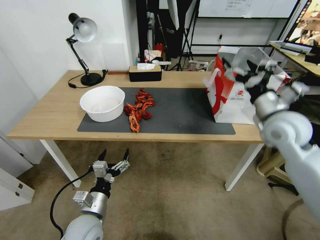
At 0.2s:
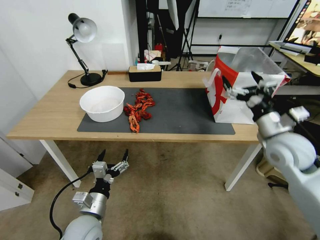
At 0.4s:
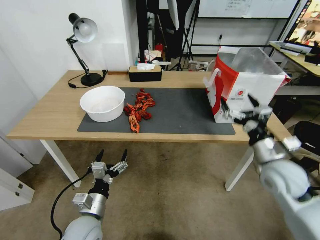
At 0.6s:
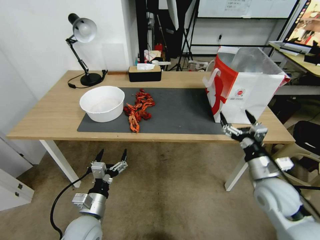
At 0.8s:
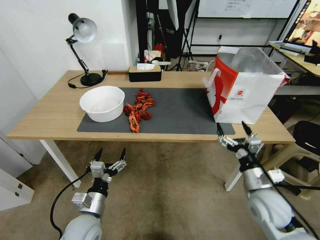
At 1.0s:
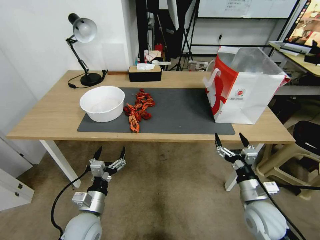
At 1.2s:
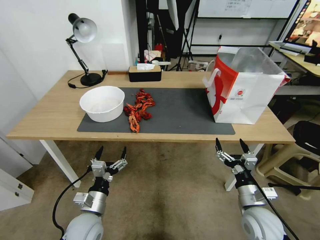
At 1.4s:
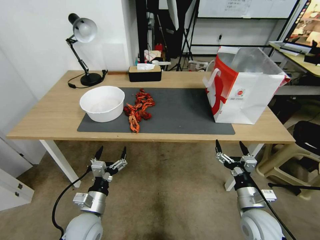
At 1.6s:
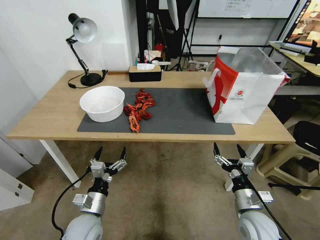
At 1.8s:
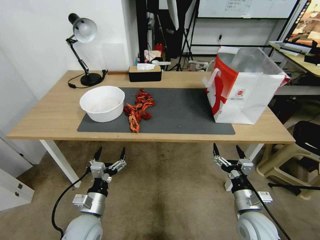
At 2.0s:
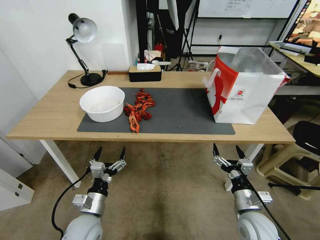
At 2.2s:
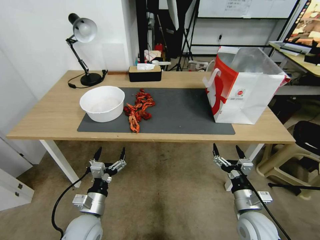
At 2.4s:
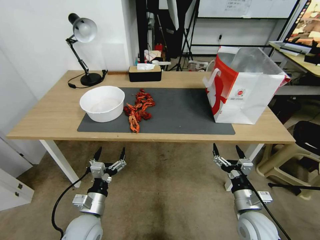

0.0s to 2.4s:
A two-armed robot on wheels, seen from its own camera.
Task of the whole recording: Close the takeout container lid, then place the container into the takeout bag.
0.0s to 1.2s: The right gripper travels downward and backward by roughly 25 cm.
1.2s to 2.4s: The grippers make only small movements.

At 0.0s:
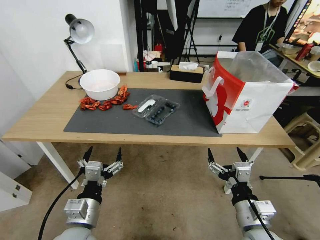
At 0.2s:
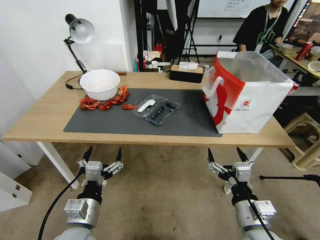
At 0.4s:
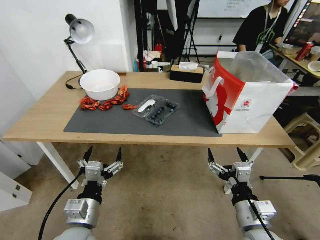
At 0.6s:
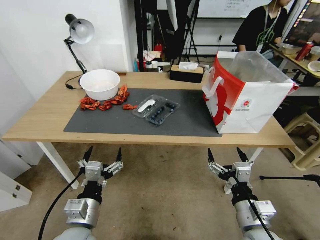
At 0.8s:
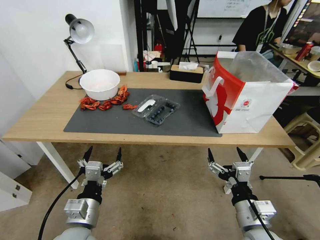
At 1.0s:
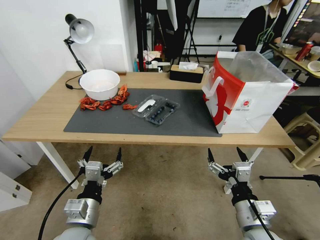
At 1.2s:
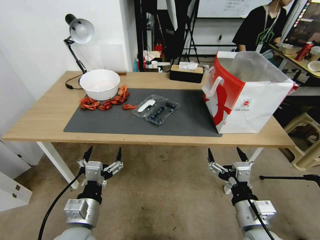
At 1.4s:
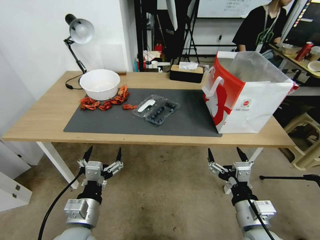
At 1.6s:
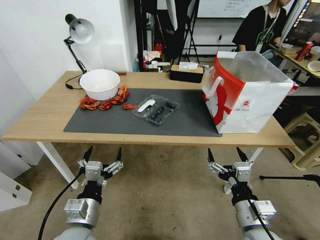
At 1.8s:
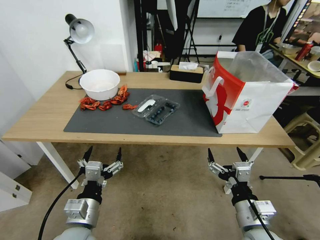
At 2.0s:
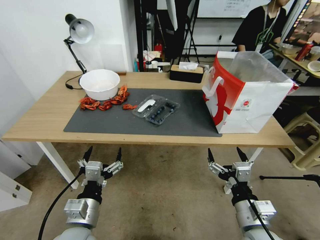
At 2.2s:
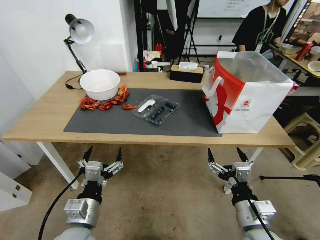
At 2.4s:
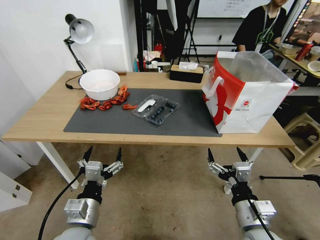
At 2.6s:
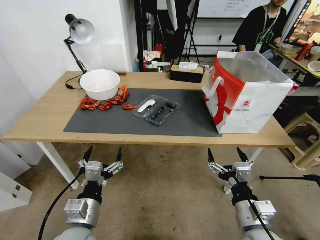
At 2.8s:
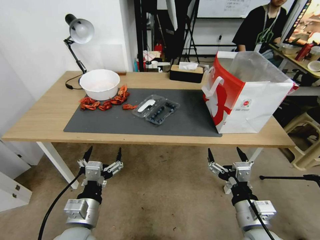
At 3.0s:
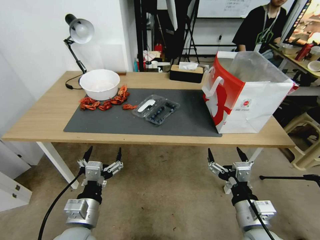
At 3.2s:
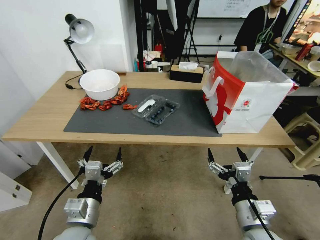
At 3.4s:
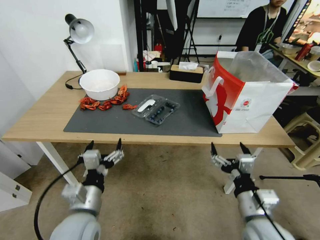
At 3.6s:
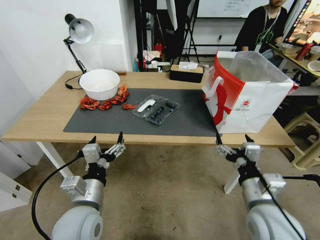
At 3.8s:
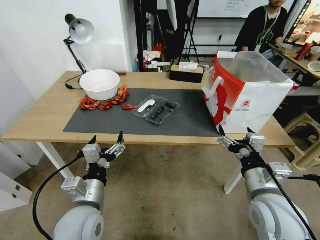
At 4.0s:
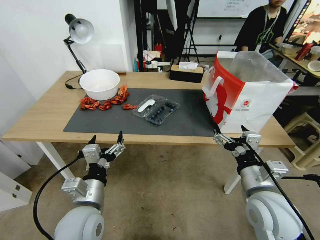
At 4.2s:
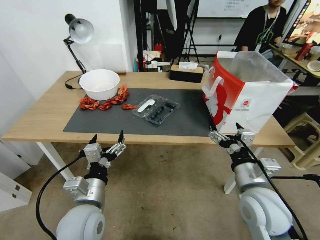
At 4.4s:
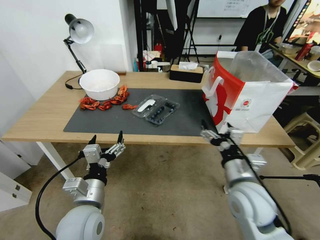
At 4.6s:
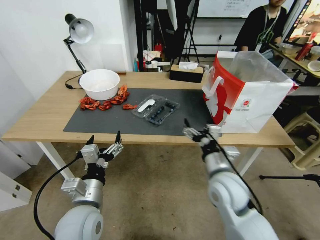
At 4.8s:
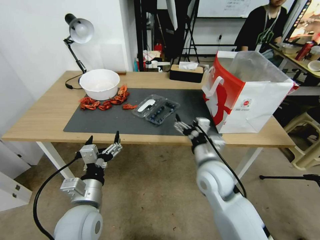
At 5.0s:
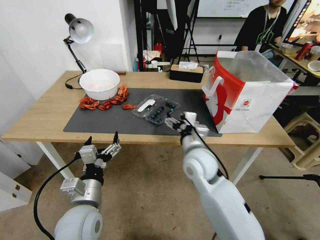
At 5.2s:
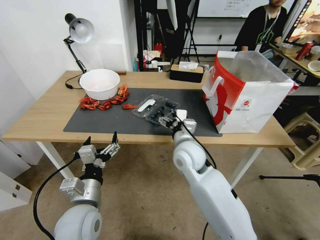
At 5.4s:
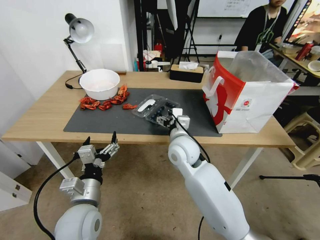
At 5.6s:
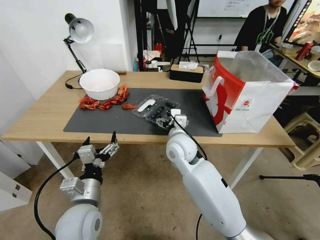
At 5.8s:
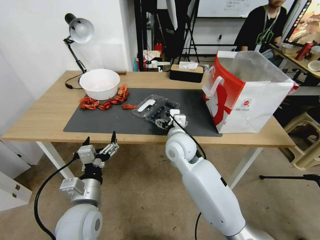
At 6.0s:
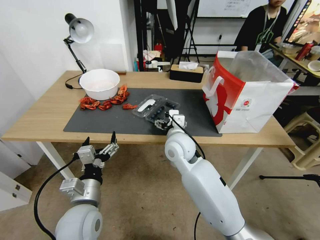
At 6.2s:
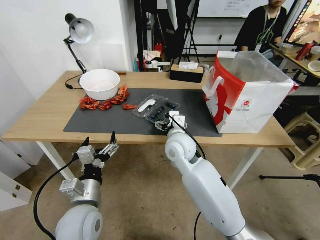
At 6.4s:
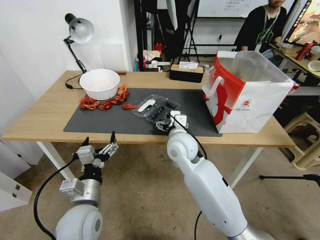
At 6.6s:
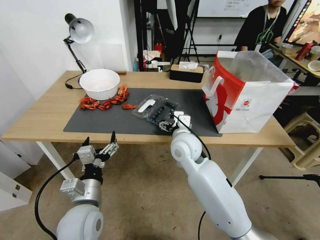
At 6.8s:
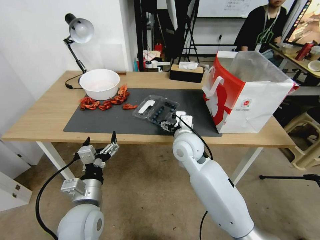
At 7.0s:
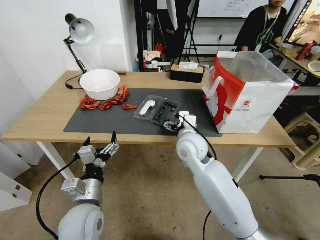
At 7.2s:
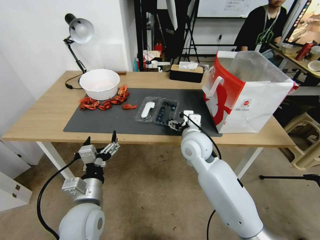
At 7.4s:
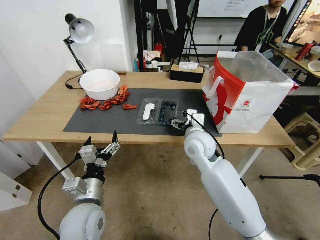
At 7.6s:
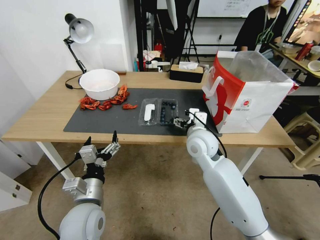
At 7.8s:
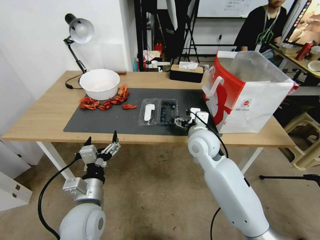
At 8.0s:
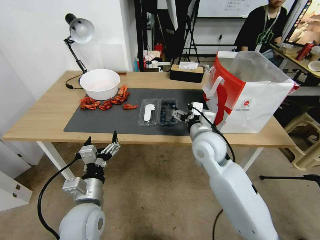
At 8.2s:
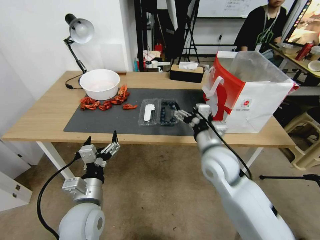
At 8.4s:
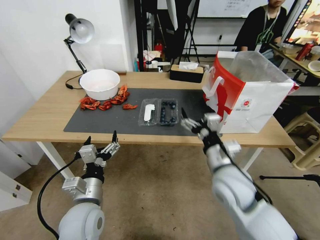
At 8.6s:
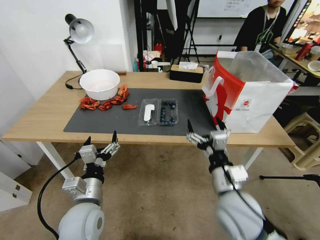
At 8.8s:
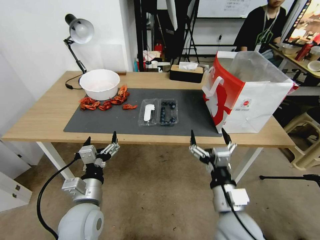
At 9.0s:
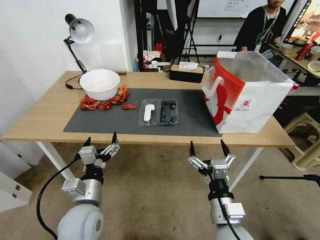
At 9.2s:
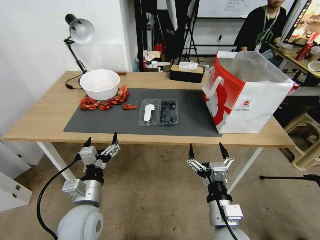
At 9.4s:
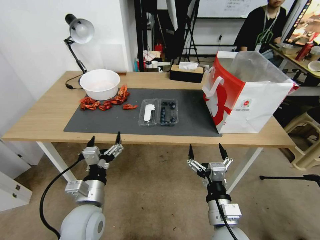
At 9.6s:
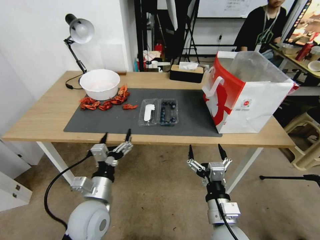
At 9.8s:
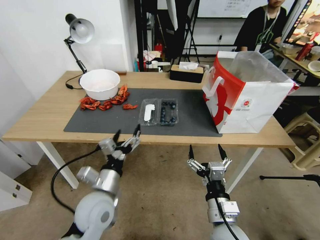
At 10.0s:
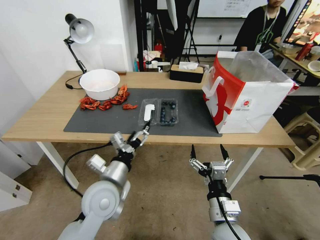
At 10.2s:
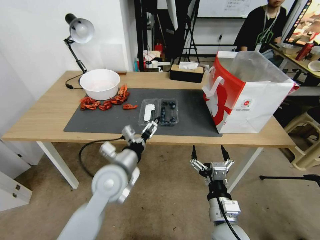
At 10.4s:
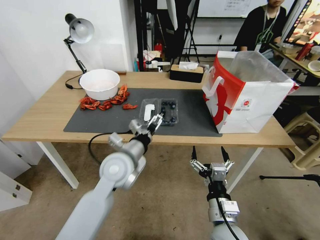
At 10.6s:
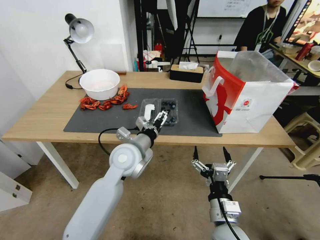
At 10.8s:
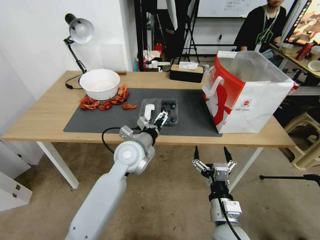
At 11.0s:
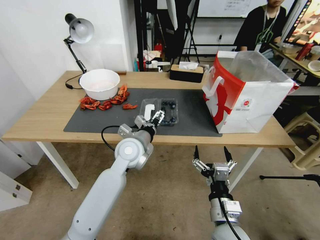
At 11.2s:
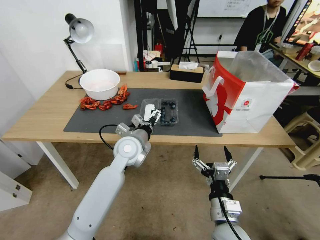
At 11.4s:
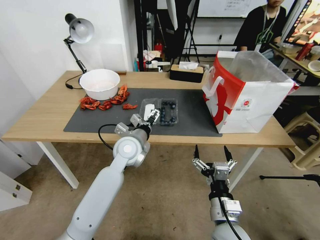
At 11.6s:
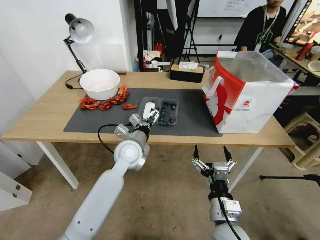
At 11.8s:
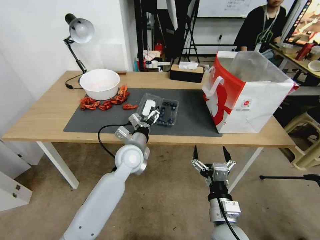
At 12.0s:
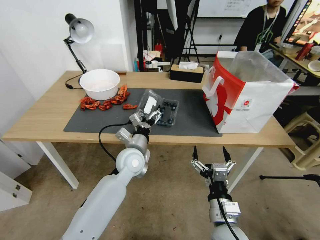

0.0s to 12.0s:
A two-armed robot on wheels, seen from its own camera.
Task of the whole recording: Close the takeout container lid, then place the container into the takeout bag.
1.6s to 3.0s: Neither gripper changes place.
3.0s to 4.4s: The right gripper goes some 10 cm forward.
4.4s to 6.0s: The right gripper shifts some 20 cm to the left and forward.
6.0s to 7.6s: The right gripper moves to the right, some 5 cm.
7.6s to 9.0s: The right gripper goes approximately 25 cm backward.
9.0s to 10.4s: The left gripper moves forward, to the right and upward, approximately 15 cm.
10.4s to 12.0s: The left gripper moves downward and forward, approximately 10 cm.

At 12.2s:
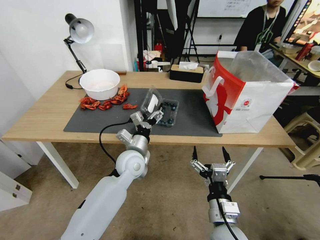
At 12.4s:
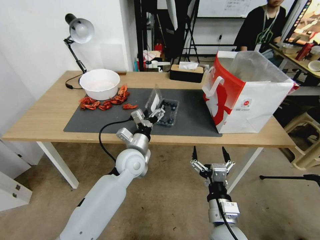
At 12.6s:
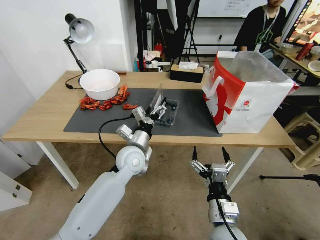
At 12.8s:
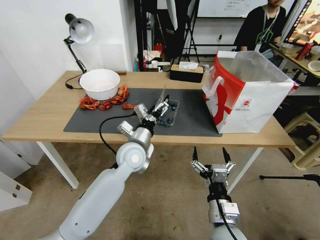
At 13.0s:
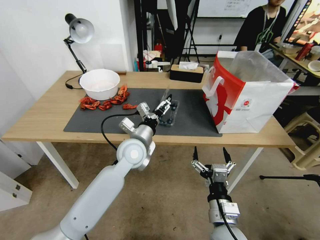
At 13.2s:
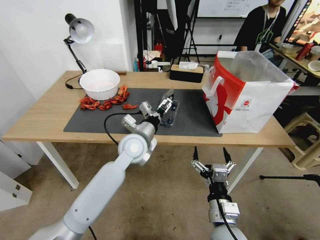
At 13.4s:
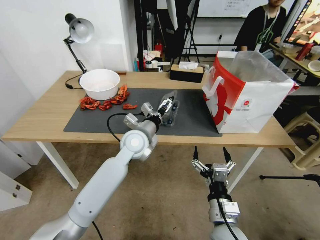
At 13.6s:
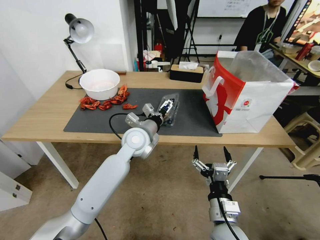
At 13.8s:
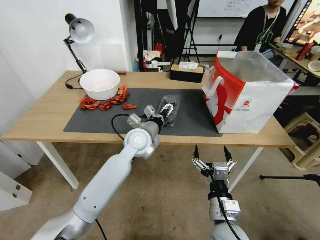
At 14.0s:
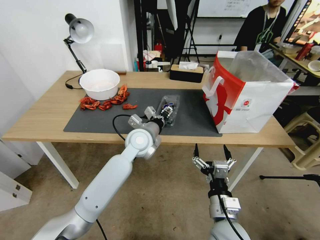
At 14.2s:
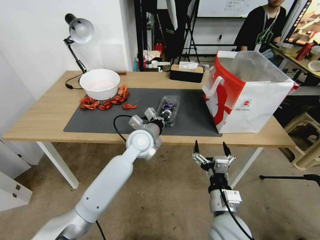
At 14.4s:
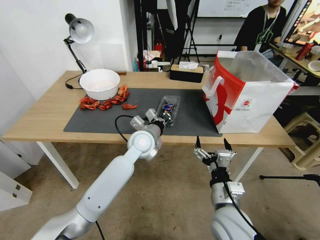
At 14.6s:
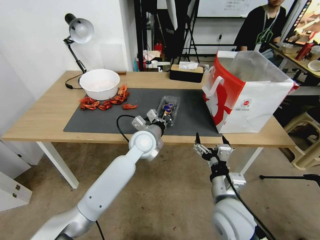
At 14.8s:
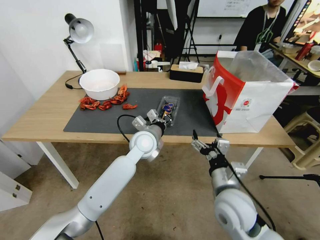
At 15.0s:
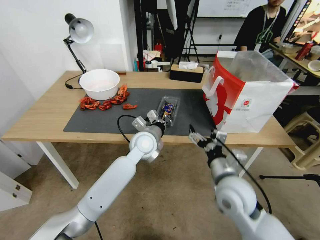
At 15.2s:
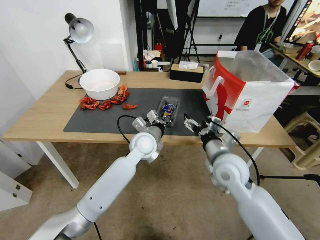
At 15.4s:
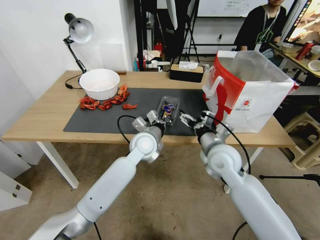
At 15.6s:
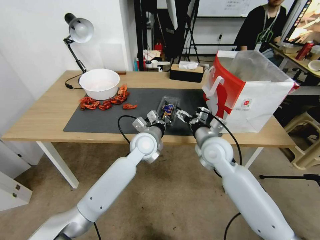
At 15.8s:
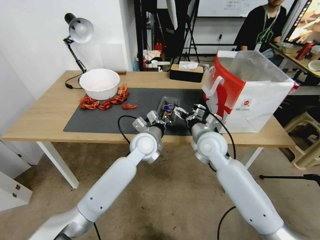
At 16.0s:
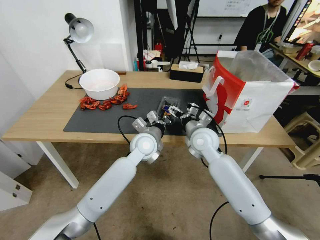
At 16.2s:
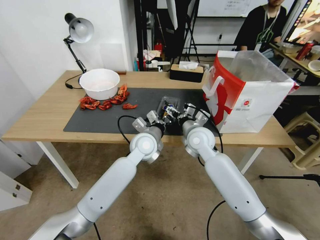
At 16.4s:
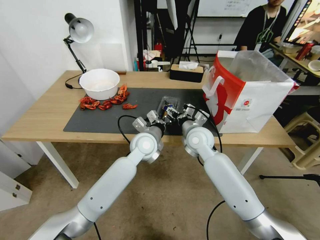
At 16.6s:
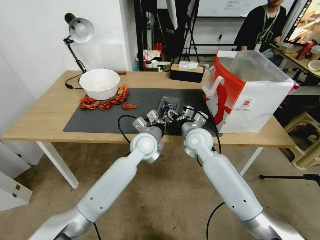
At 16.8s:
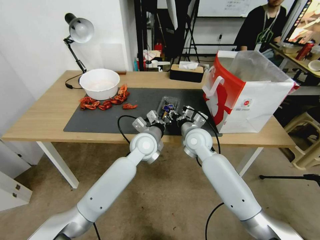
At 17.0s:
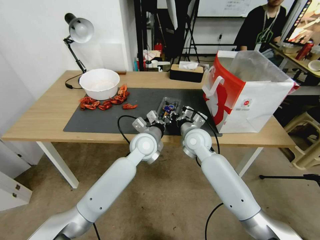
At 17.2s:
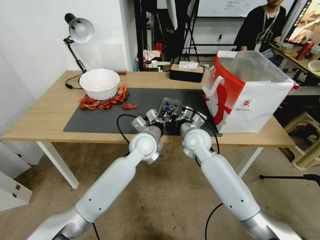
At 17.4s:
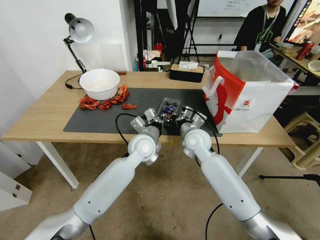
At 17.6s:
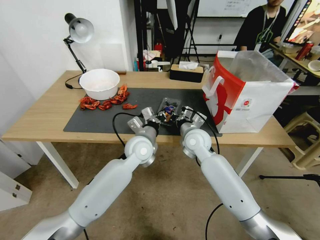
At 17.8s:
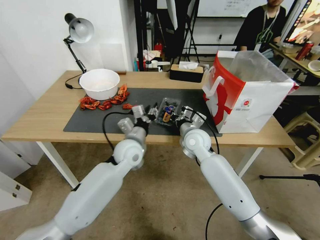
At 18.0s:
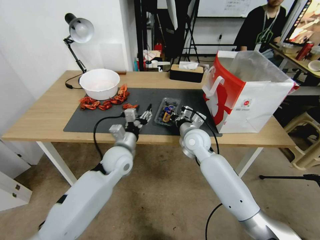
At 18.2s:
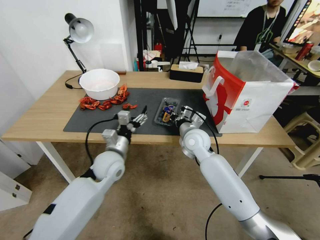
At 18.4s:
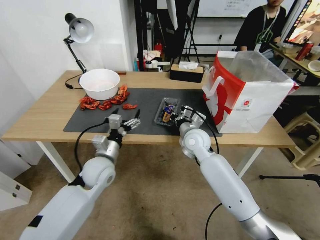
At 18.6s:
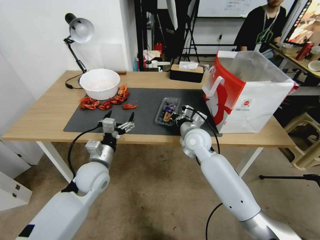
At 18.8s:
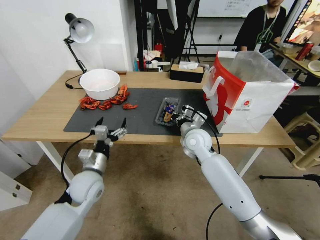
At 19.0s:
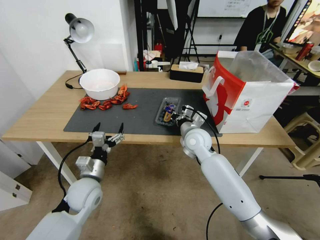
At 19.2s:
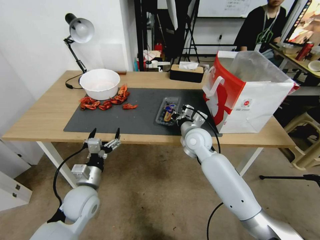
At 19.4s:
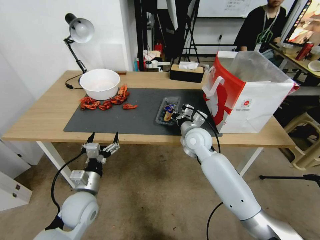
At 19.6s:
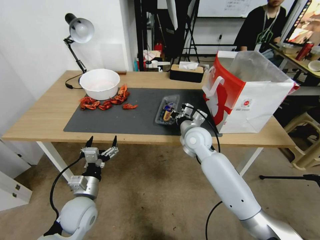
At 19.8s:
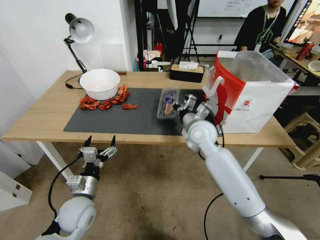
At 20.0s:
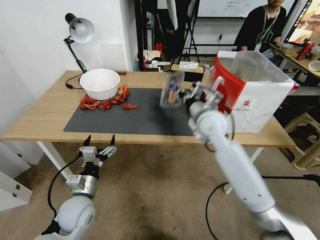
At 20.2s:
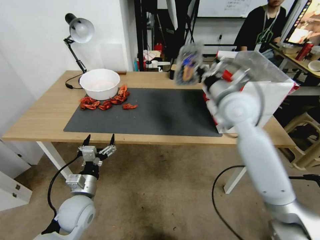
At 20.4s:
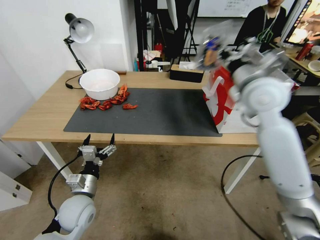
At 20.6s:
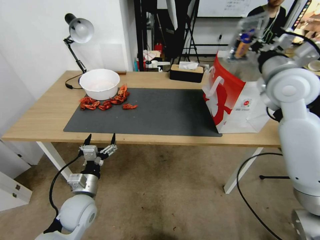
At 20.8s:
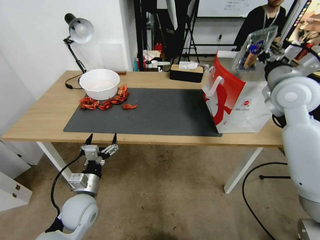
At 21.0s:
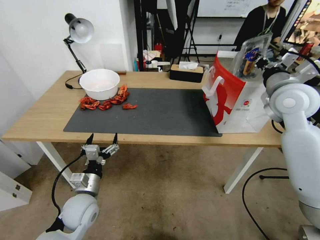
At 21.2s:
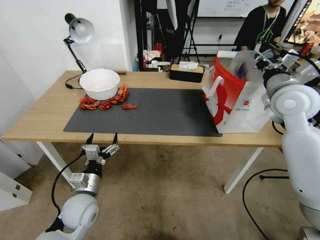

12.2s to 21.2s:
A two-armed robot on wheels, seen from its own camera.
Task of the whole recording: Close the takeout container lid, then place the container into the takeout bag.
12.2s to 13.8s: The left gripper shifts about 5 cm upward.
13.8s to 15.2s: The right gripper goes approximately 15 cm forward and upward. The left gripper closes.
15.2s to 16.6s: The right gripper shifts some 15 cm forward and to the left, and closes up.
16.6s to 18.2s: The right gripper closes up. The left gripper moves to the left and backward, some 15 cm, and opens up.
18.2s to 19.8s: The left gripper shifts roughly 15 cm backward, to the left and downward.
19.8s to 21.2s: The right gripper heads to the right and upward, covering some 25 cm.
